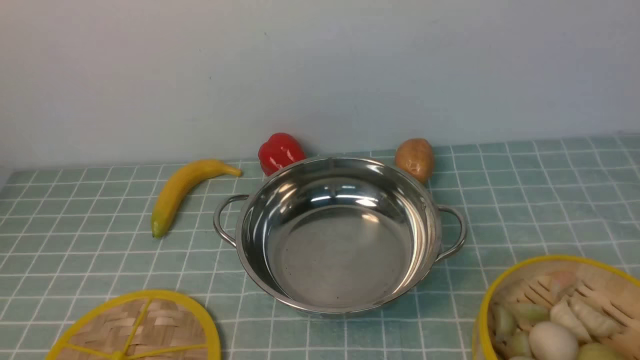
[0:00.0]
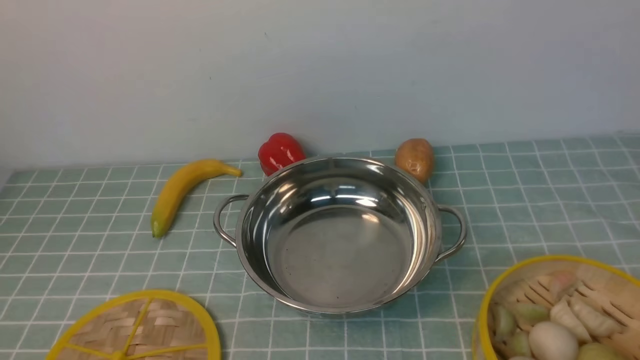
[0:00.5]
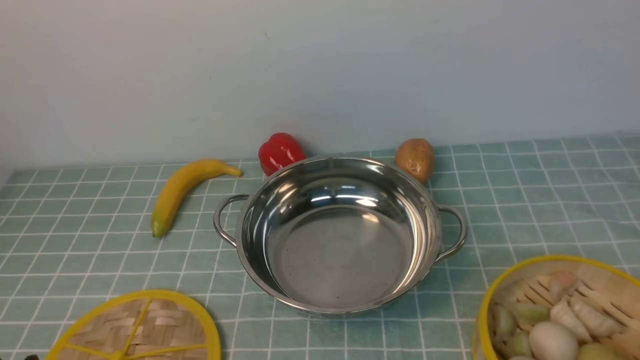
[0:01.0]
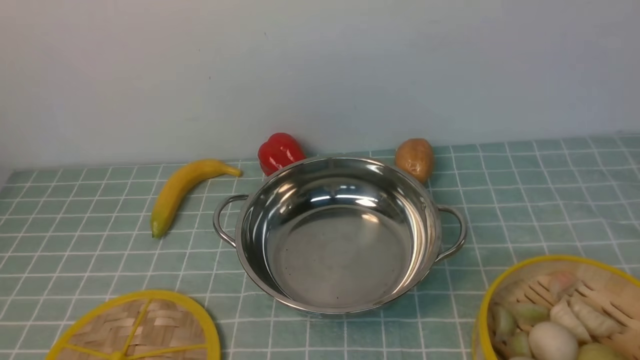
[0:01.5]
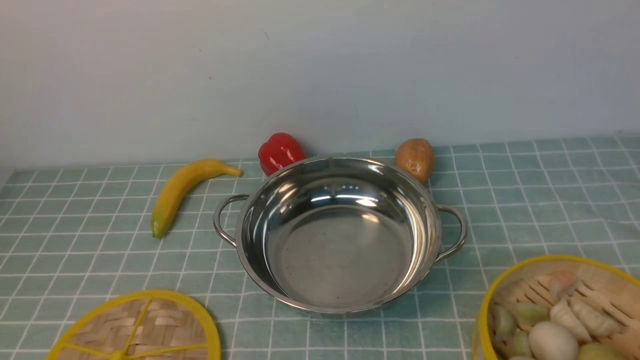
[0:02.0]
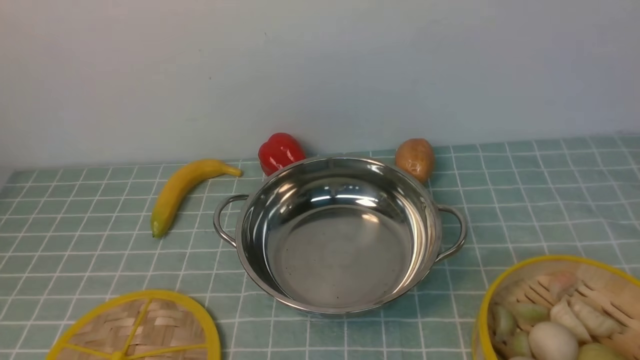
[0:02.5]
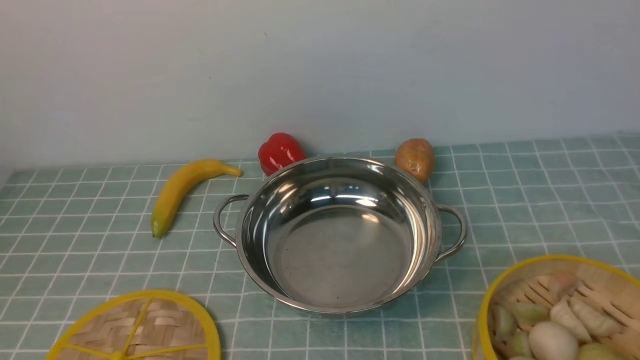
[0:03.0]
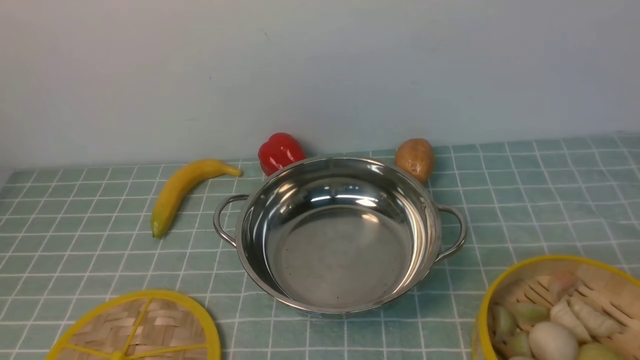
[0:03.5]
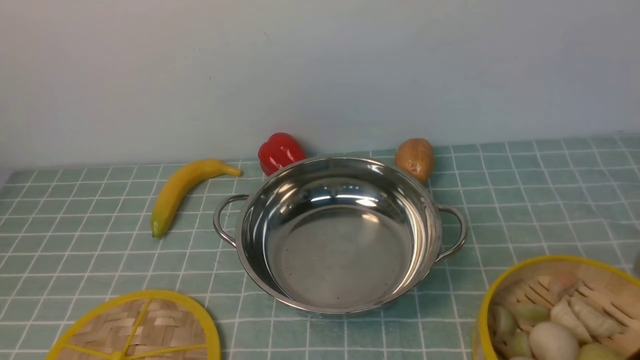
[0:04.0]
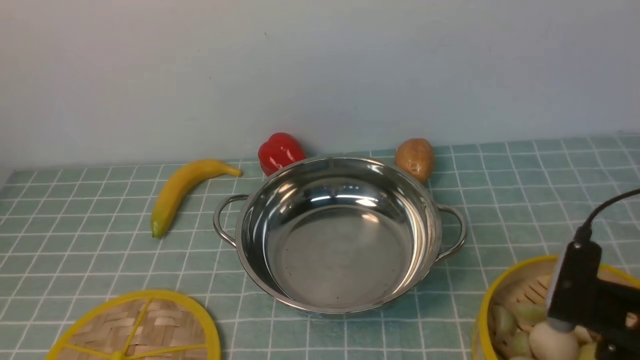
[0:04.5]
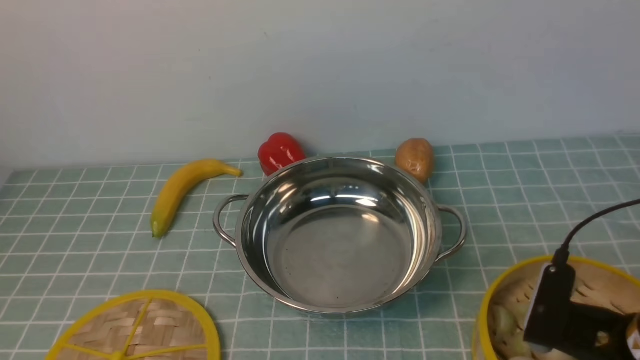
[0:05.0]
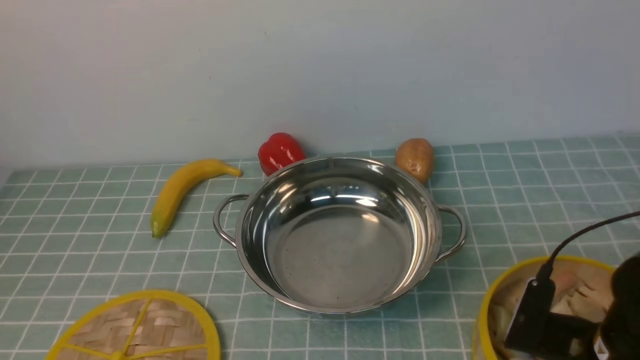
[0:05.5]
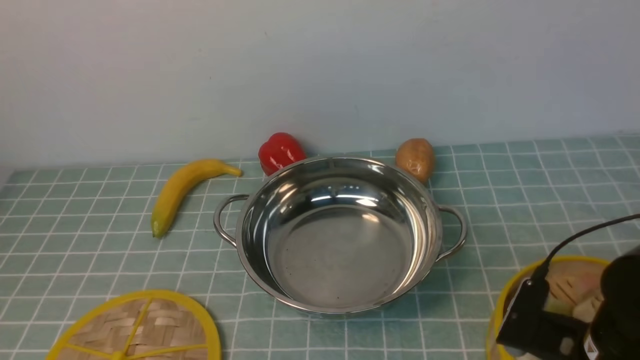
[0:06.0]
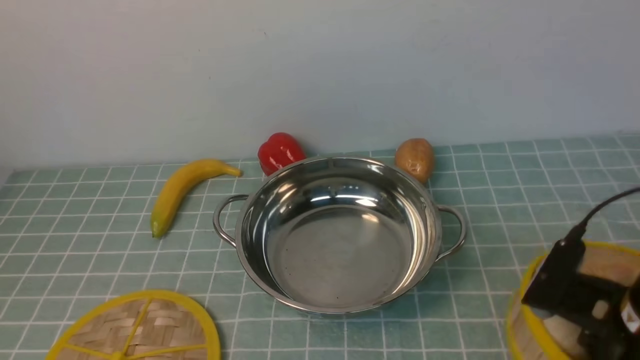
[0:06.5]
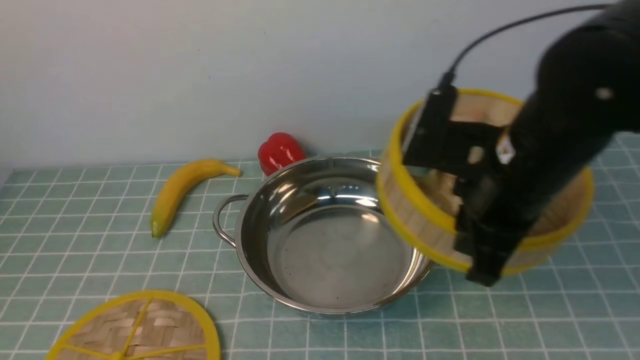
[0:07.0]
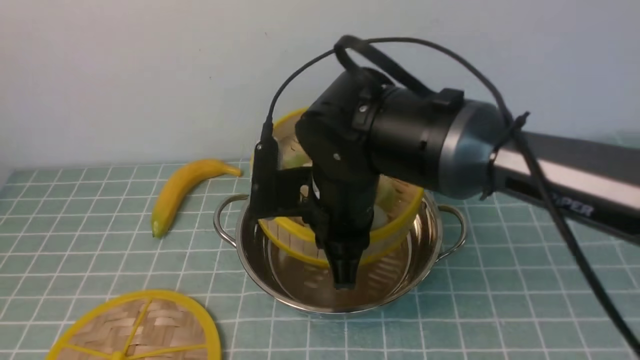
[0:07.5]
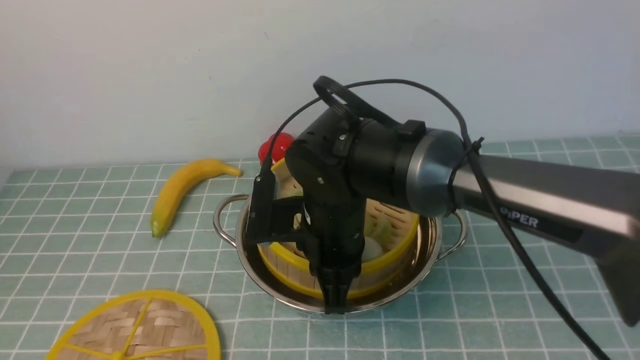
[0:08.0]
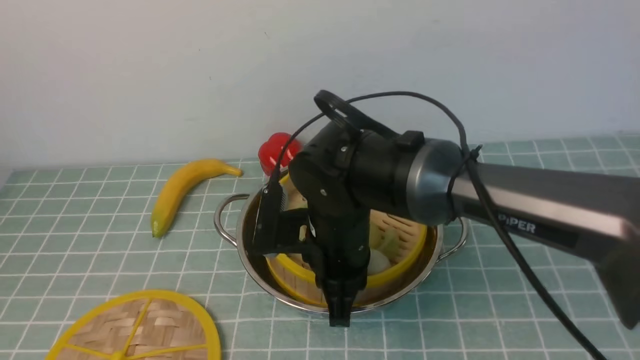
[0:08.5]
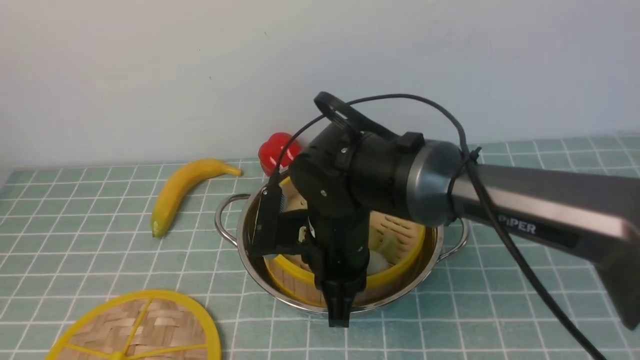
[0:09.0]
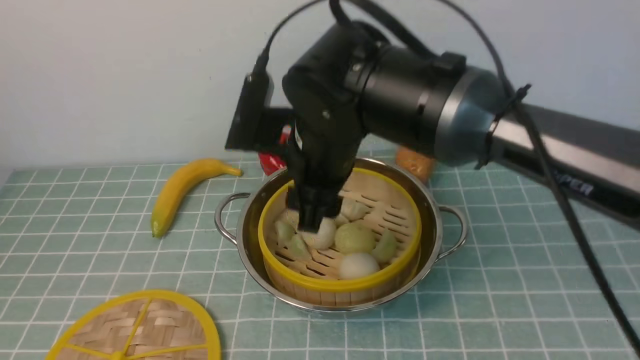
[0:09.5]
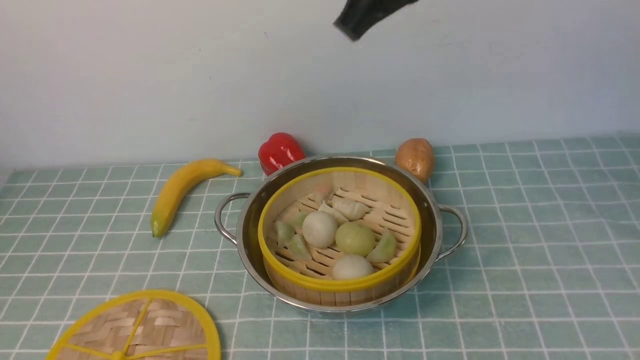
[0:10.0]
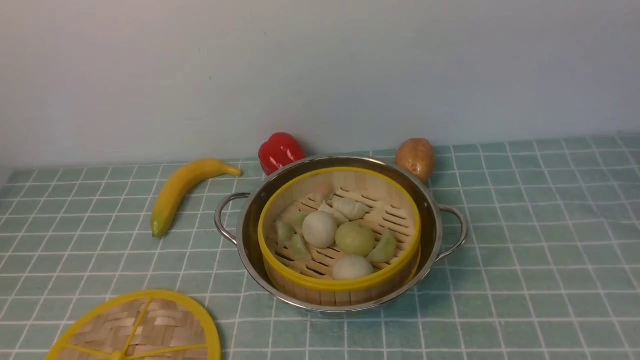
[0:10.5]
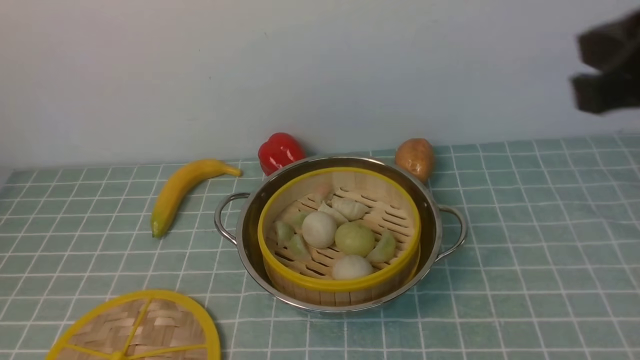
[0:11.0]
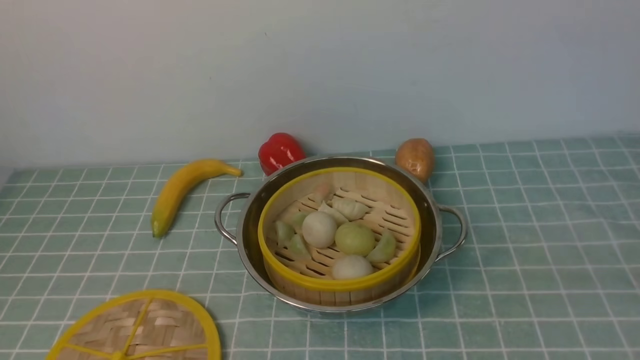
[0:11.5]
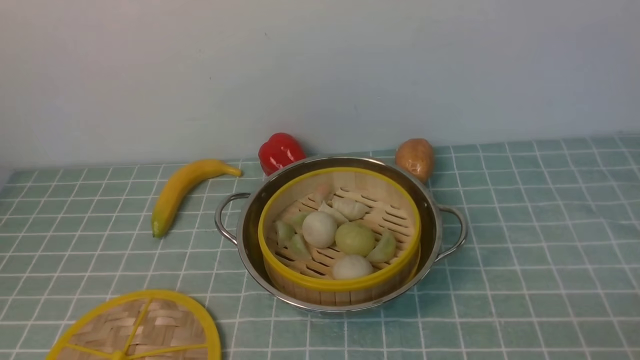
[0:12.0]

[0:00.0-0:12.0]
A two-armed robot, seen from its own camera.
Task of the whole recording: place the steamer in the pot on the blue tablecloth, and put the lid on the steamer.
Step, 0:00.0 to 0:06.5: use the right arm to lift the steamer closest to it.
Step, 0:07.0 to 0:09.5: use the right arm to put the steamer into the iron steamer pot in the middle.
0:04.0 to 0:06.0: The right gripper goes roughly 10 cm downward, and closes its fingers.
0:06.0 to 0:08.0: The right gripper is displaced to the left and forward by roughly 25 cm.
0:08.0 to 0:10.0: The right gripper is displaced upward by some 25 cm, and opens, then closes again.
0:10.0 to 0:12.0: The right gripper moves downward, to the right and backward, approximately 40 cm.

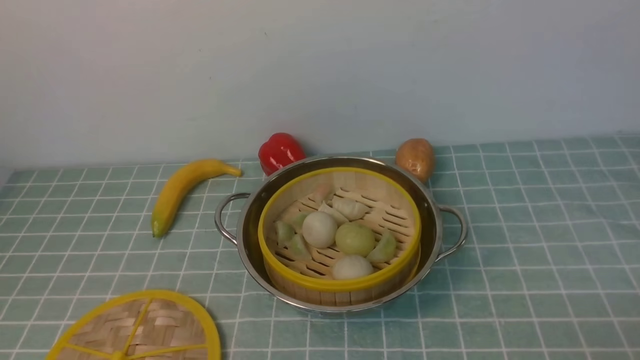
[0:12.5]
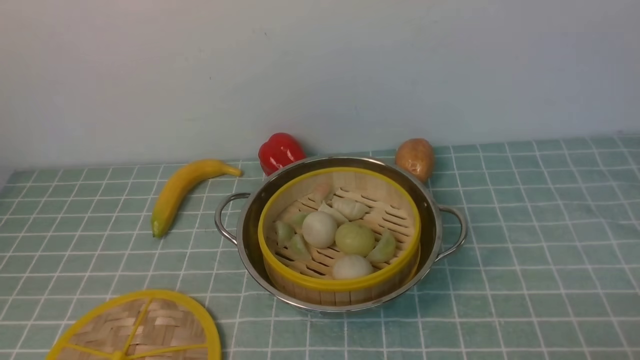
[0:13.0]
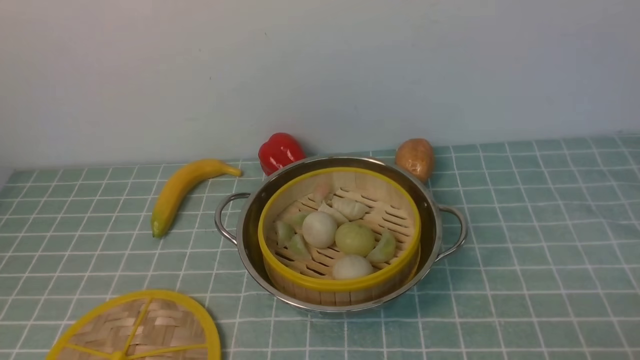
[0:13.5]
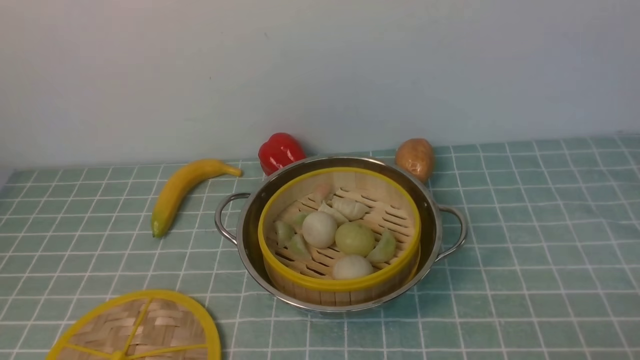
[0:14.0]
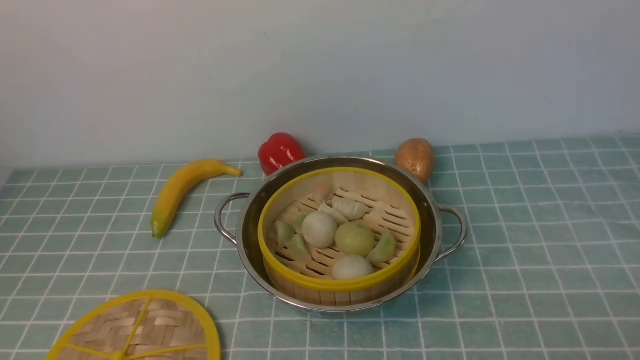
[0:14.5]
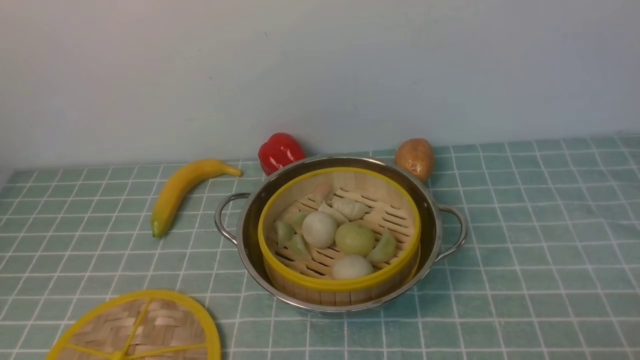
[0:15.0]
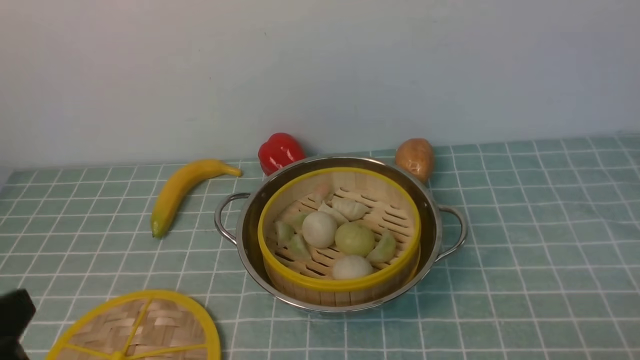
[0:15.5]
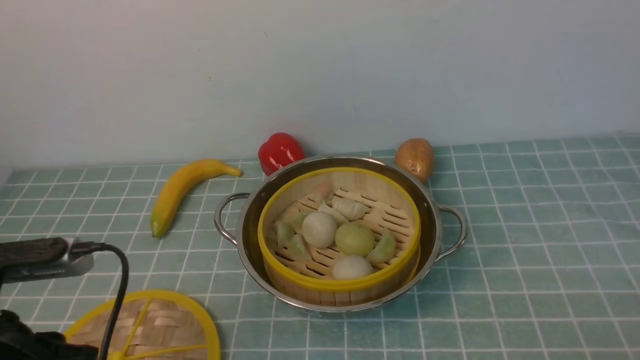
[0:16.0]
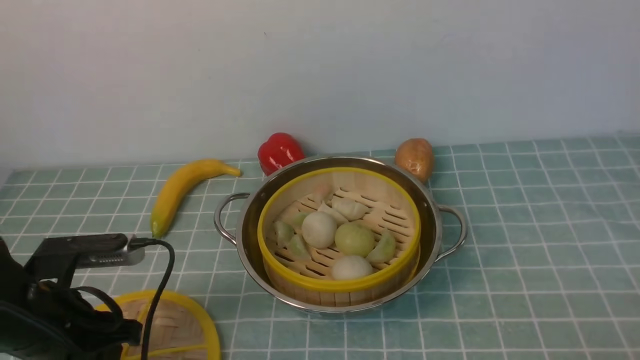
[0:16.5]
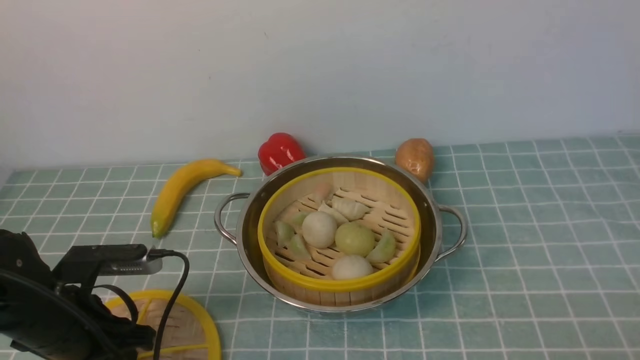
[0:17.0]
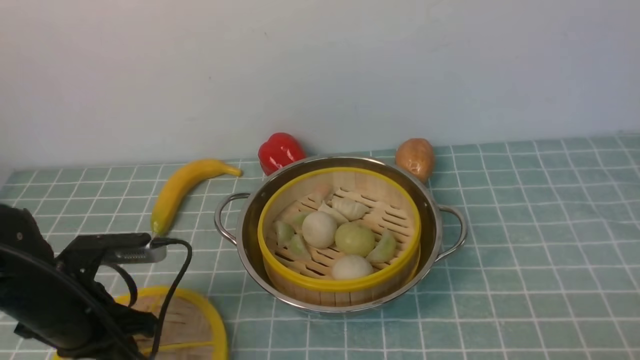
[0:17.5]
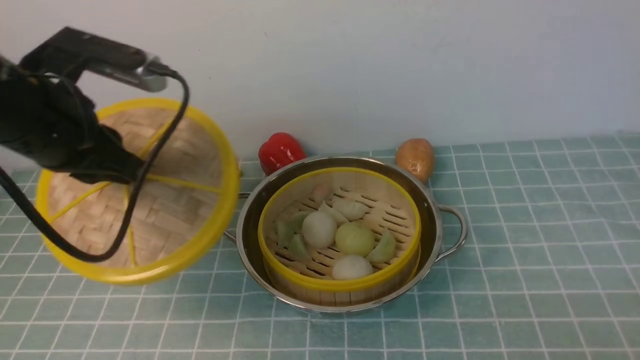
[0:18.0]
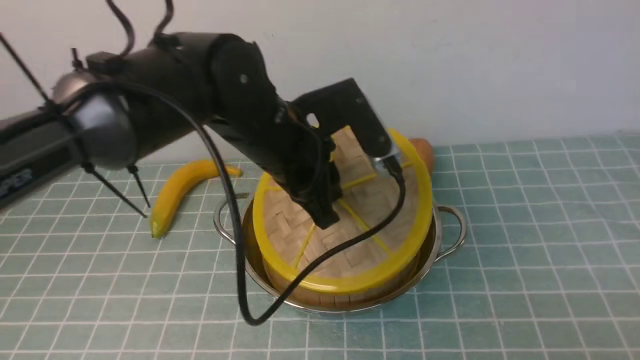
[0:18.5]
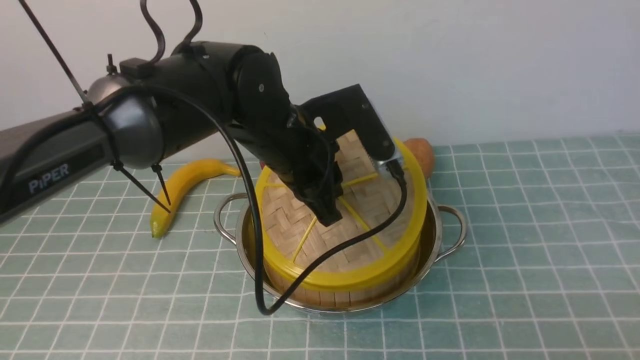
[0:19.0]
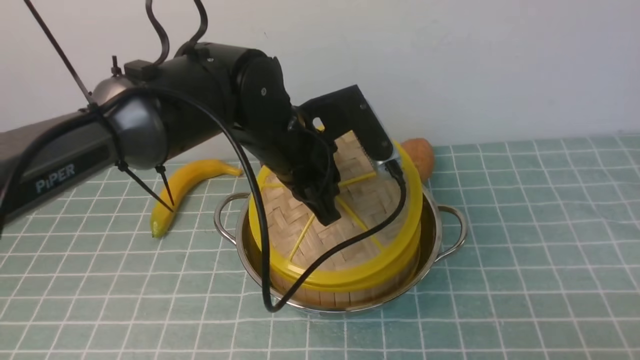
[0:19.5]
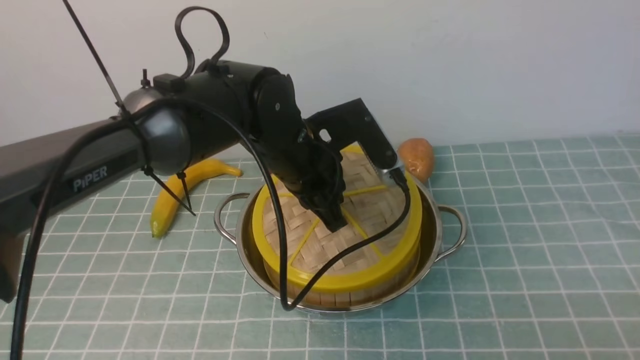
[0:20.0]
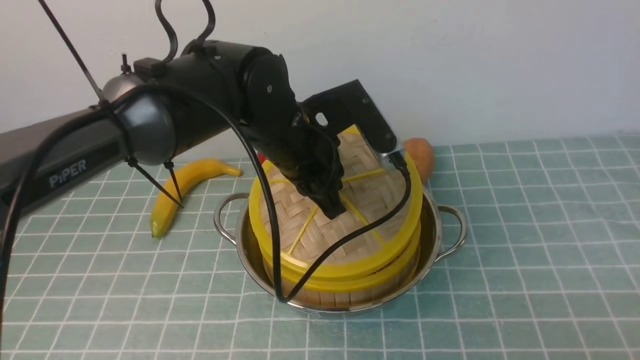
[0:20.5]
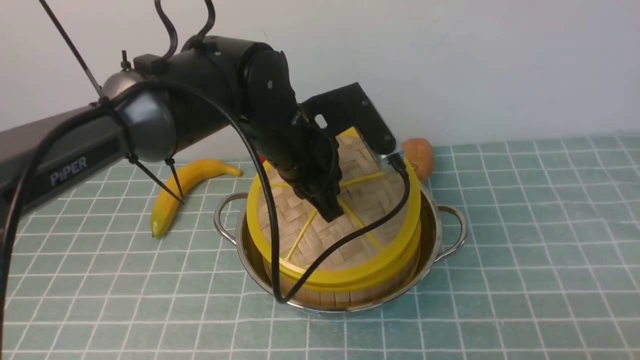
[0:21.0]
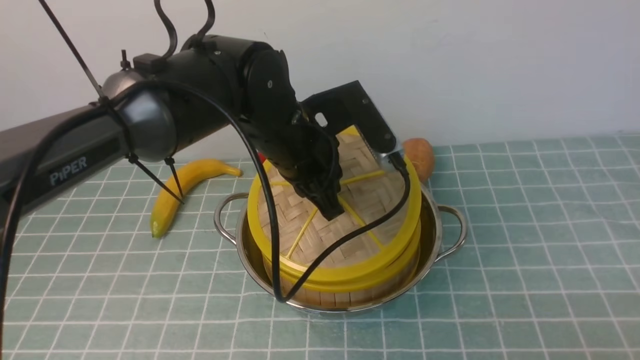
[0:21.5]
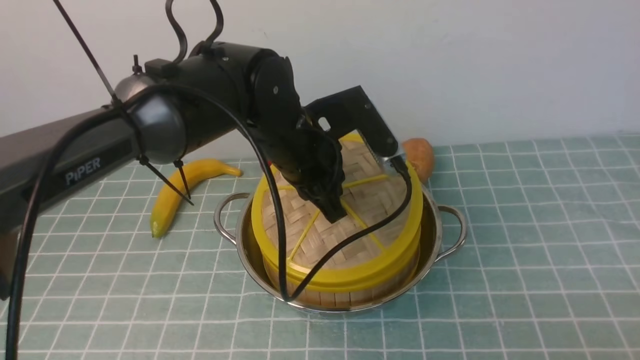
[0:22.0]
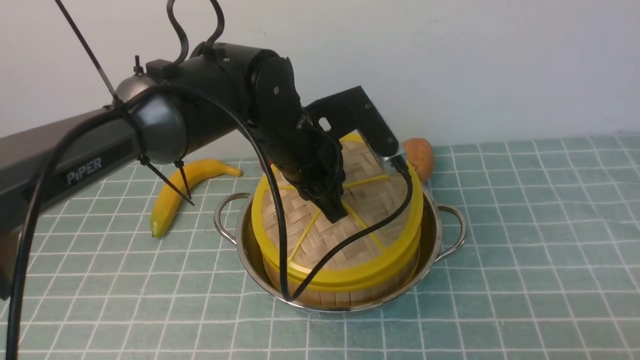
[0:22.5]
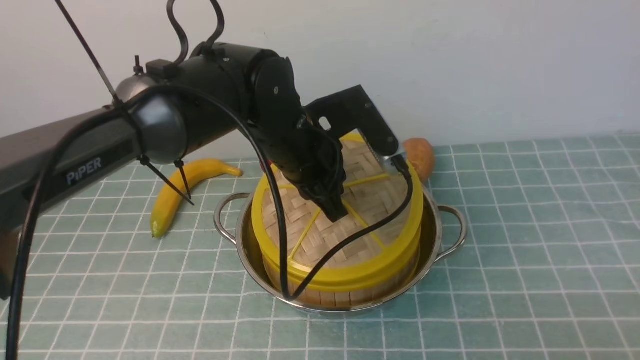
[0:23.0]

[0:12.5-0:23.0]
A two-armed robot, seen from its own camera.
Task of the whole recording: place the steamer in the pot on the blue tablecloth, and put the lid on the steamer.
Step, 0:12.5 to 0:17.5: use the left arm to lift the lid of the steamer.
0:14.5 to 0:16.5: The left gripper shifts some 20 cm forward and downward.
0:16.5 to 0:19.0: The left gripper travels to the right and forward by some 25 cm, and closes.
0:19.0 to 0:21.0: The grippers move only a little.
0:21.0 to 0:23.0: The two grippers keep their place.
